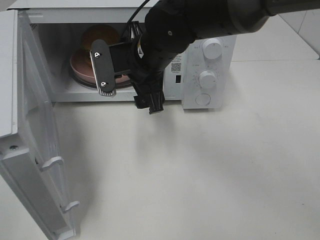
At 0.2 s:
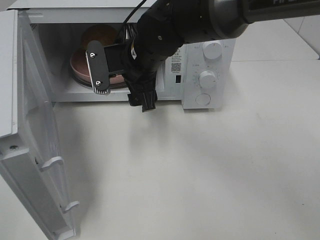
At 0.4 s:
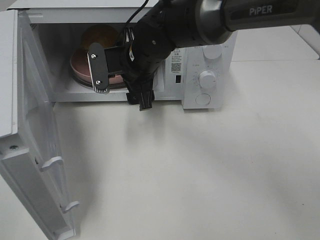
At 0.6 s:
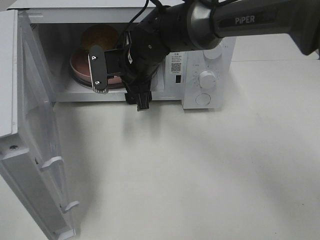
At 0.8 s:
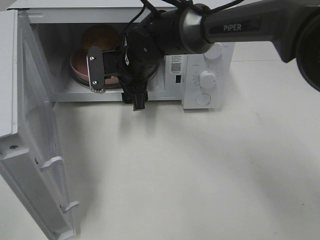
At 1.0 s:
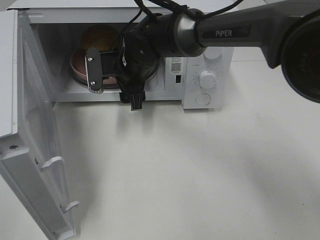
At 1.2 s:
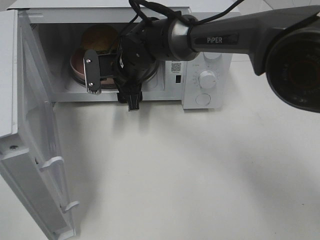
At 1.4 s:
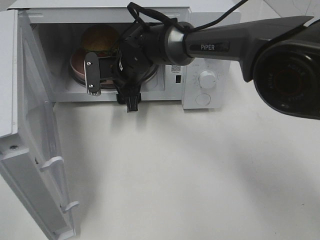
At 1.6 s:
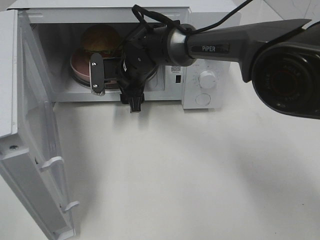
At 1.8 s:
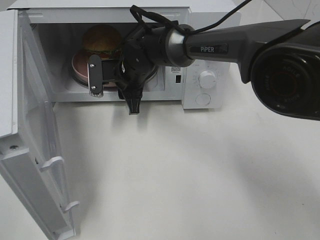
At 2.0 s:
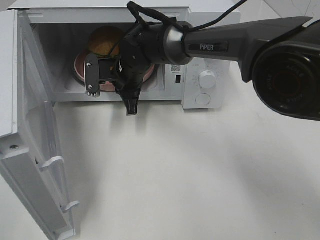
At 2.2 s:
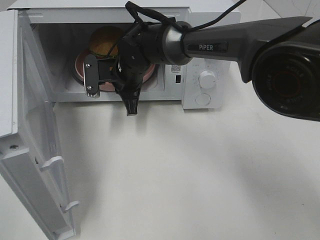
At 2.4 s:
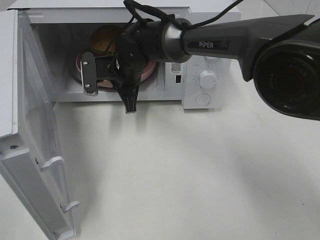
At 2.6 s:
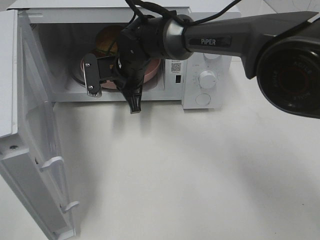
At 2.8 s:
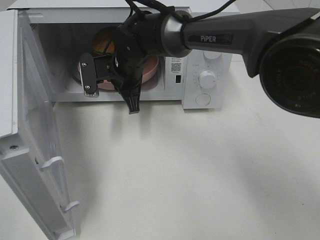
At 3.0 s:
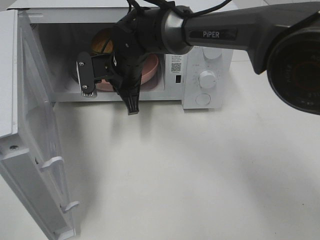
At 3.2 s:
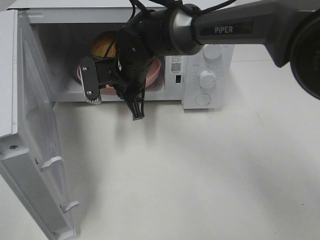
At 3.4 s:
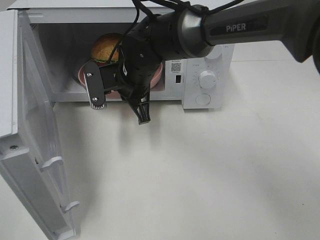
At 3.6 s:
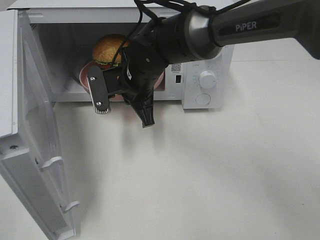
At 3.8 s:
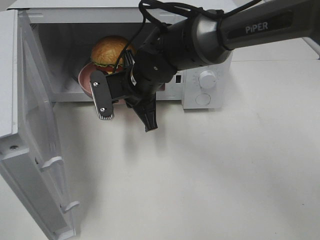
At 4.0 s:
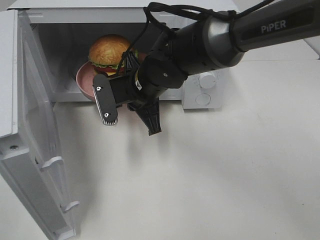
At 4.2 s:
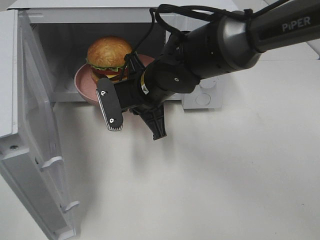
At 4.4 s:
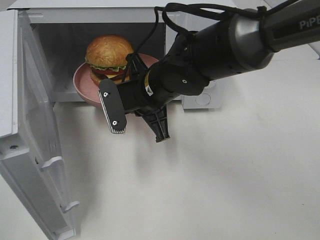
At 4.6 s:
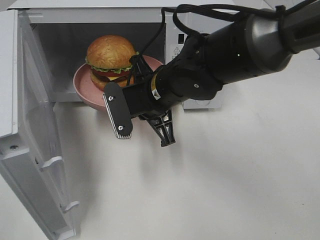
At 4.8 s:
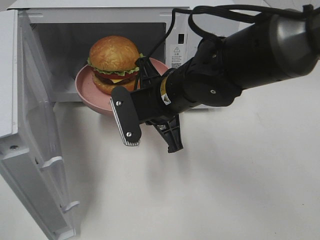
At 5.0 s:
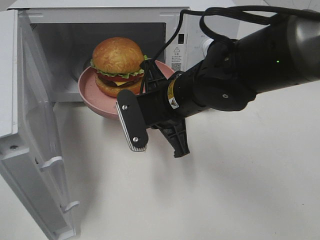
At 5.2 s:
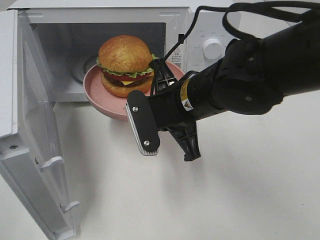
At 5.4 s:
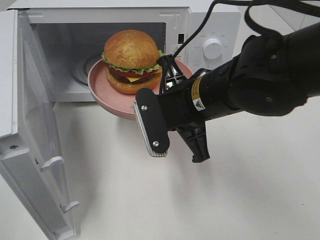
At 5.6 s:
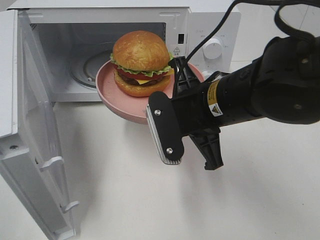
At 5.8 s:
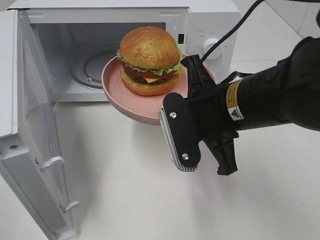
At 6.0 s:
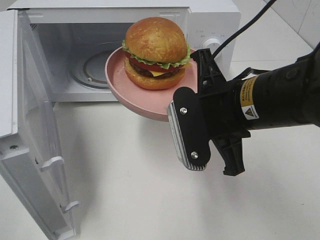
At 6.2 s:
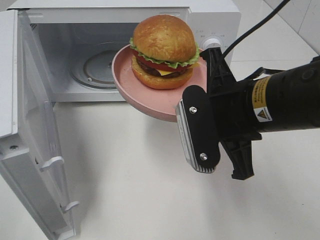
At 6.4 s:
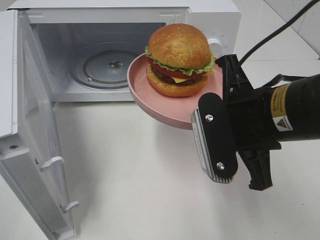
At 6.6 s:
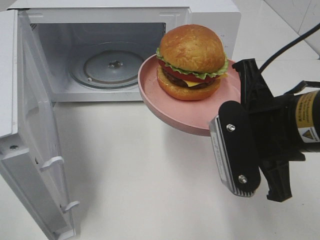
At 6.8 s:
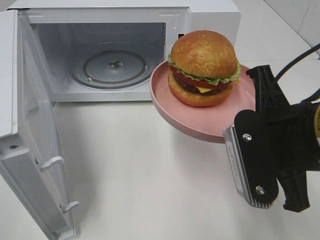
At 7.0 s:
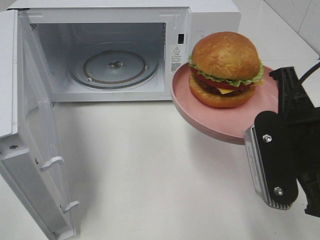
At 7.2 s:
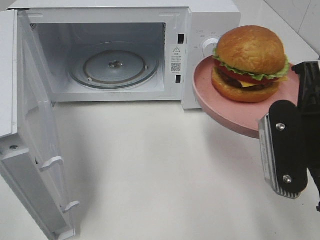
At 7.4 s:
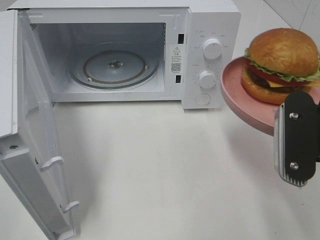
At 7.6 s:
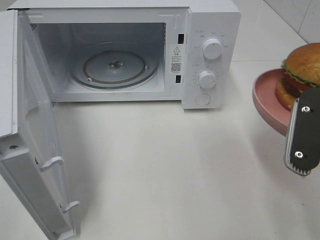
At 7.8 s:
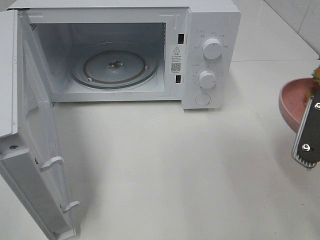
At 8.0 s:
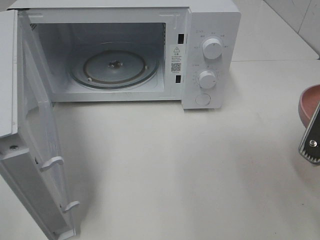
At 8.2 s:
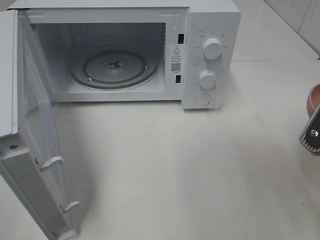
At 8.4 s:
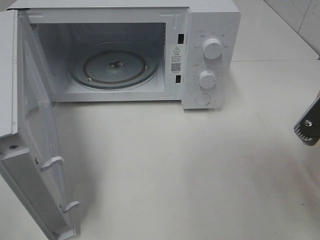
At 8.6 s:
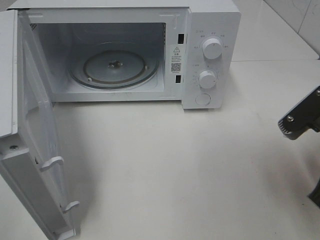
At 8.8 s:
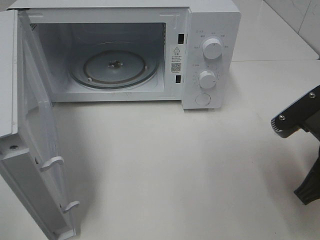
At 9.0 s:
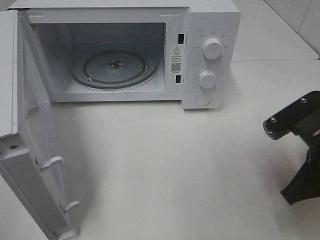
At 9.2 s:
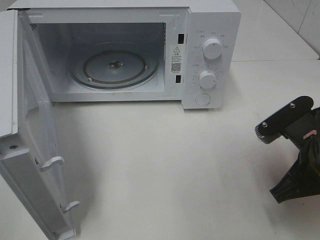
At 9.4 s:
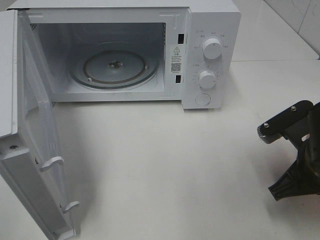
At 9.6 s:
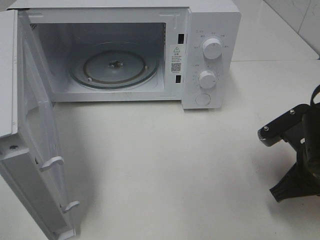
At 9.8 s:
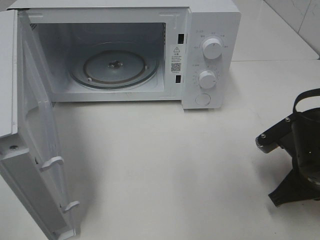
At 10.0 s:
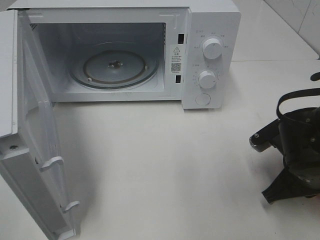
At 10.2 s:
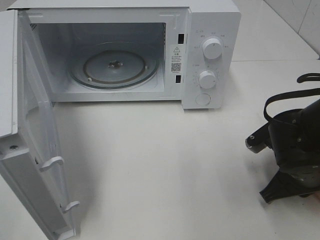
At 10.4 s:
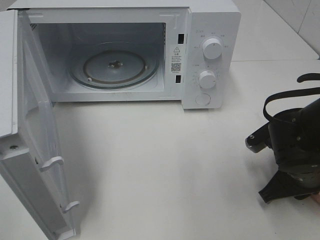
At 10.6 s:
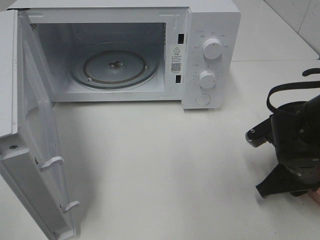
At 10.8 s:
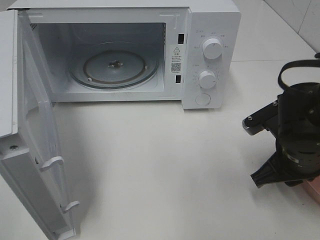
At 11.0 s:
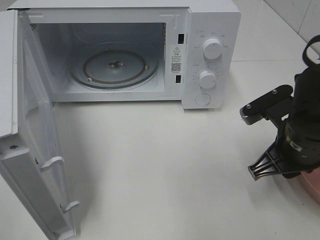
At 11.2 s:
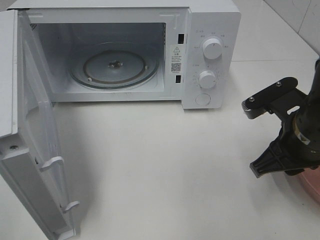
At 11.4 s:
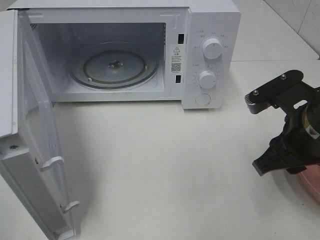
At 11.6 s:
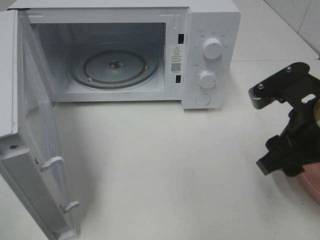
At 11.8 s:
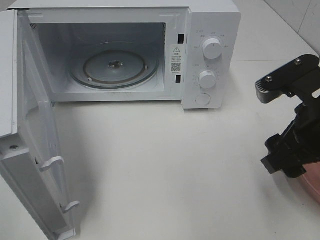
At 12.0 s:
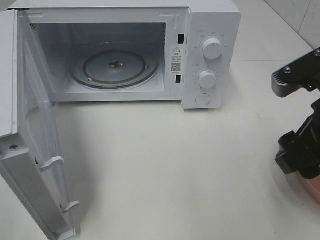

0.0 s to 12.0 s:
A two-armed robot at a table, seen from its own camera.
Task of the whole recording: Heat the burger.
Step, 0.0 to 2.4 s: Right hand: grab the plate with the hamburger.
Step, 2.6 to 10.6 s: Right hand: place the plate on the table.
0.0 to 1.6 s: The right gripper heads forward and downward, covering approximately 10 cm.
1.6 to 3.0 s: The right gripper closes its fingers.
3.0 to 4.4 s: The right gripper moves backward and to the right, about 10 cm.
4.4 to 6.0 s: The right gripper shifts about 15 cm backward, to the right and upward.
6.0 to 7.6 s: The right gripper heads to the right and backward, covering about 15 cm.
7.6 to 9.0 s: The right gripper heads downward, covering some 5 cm.
9.0 to 10.4 s: The right gripper travels downward by about 5 cm.
10.4 to 12.0 s: The right gripper is displaced upward by roughly 15 cm, and opens up.

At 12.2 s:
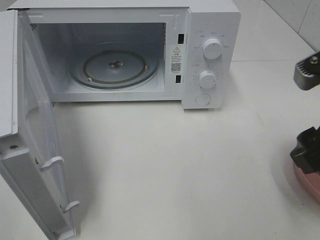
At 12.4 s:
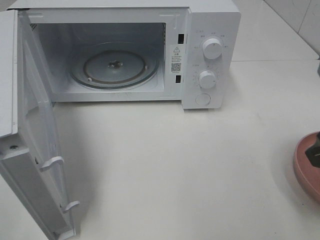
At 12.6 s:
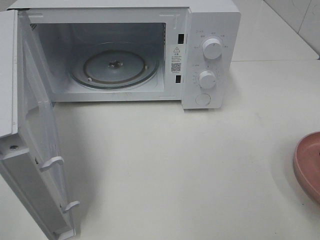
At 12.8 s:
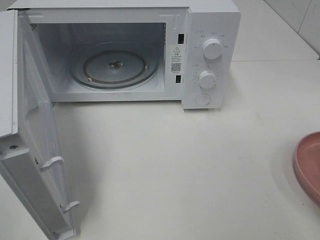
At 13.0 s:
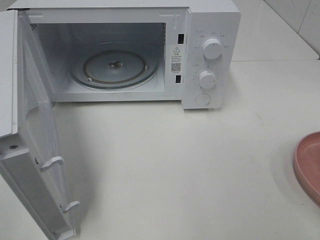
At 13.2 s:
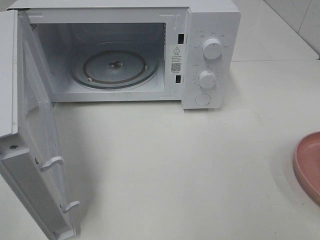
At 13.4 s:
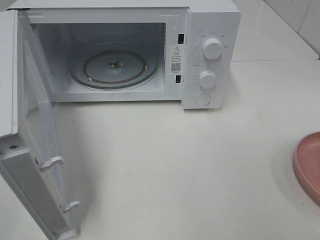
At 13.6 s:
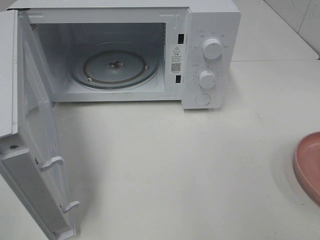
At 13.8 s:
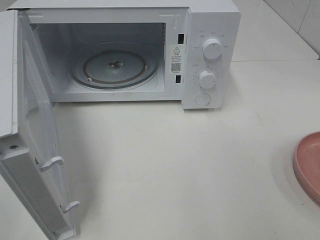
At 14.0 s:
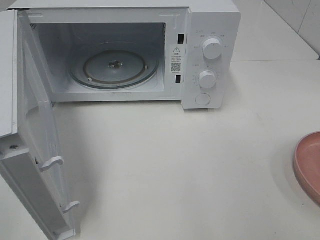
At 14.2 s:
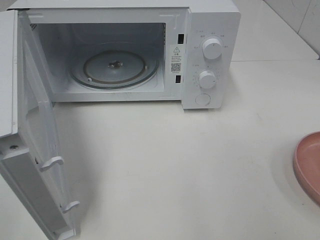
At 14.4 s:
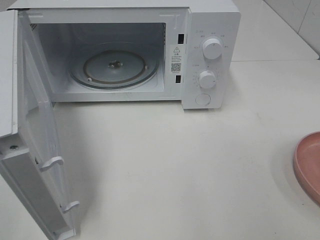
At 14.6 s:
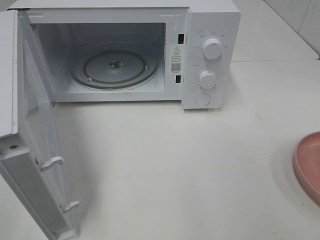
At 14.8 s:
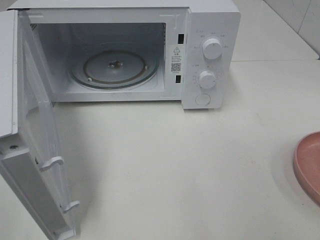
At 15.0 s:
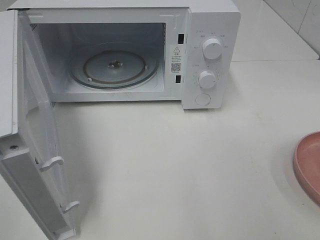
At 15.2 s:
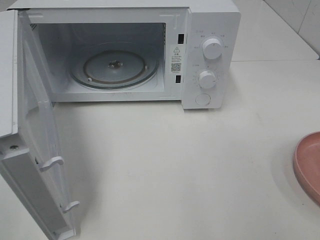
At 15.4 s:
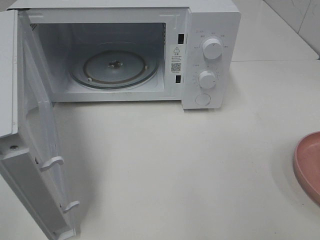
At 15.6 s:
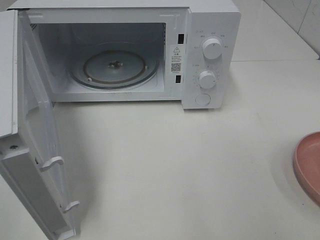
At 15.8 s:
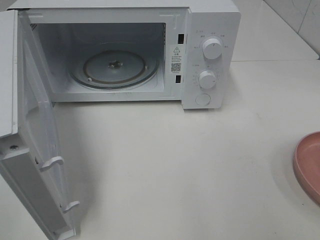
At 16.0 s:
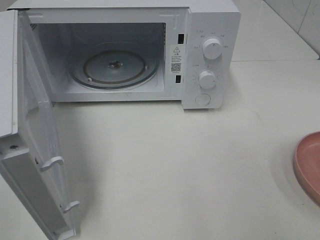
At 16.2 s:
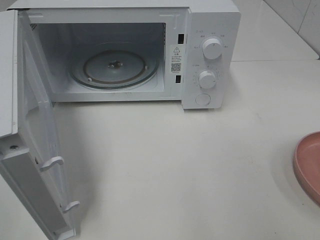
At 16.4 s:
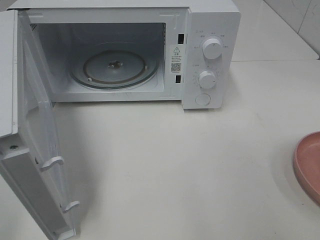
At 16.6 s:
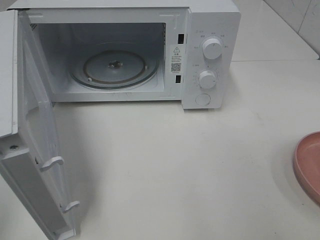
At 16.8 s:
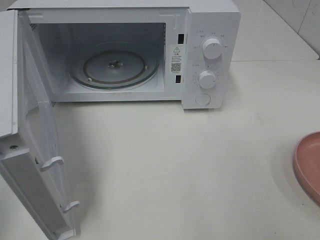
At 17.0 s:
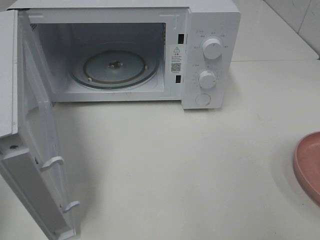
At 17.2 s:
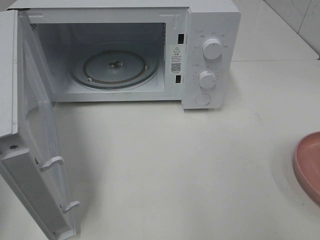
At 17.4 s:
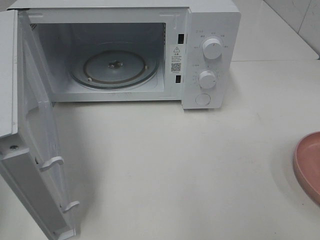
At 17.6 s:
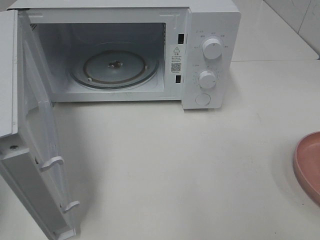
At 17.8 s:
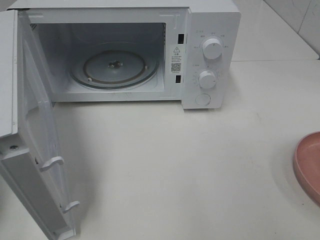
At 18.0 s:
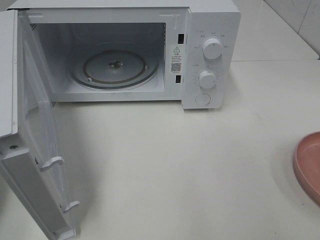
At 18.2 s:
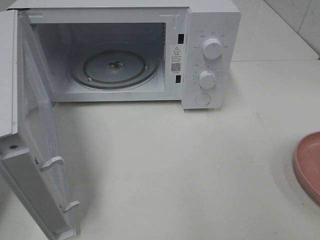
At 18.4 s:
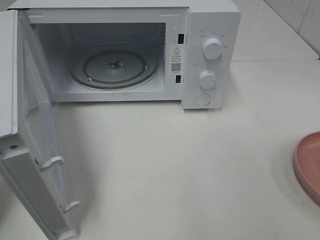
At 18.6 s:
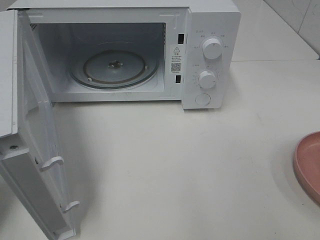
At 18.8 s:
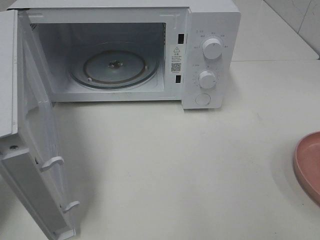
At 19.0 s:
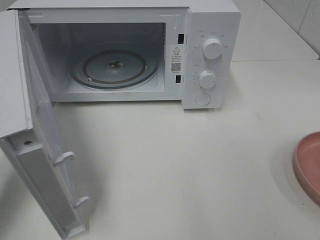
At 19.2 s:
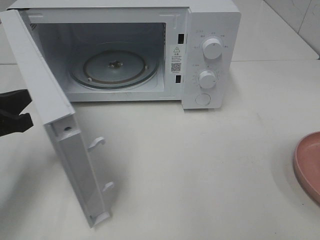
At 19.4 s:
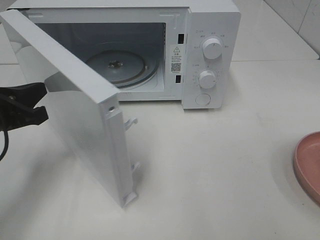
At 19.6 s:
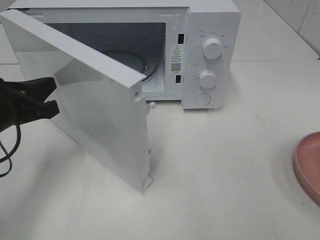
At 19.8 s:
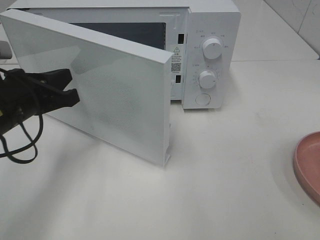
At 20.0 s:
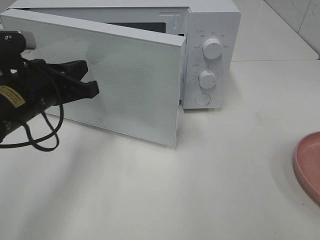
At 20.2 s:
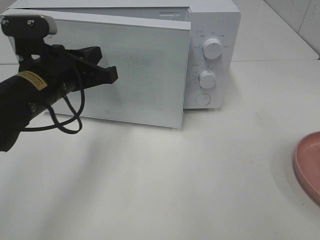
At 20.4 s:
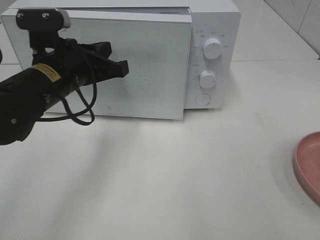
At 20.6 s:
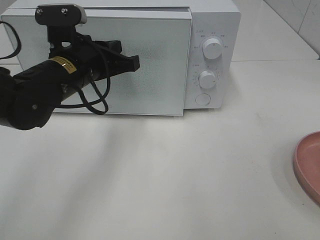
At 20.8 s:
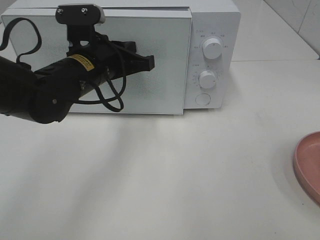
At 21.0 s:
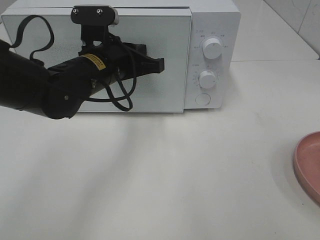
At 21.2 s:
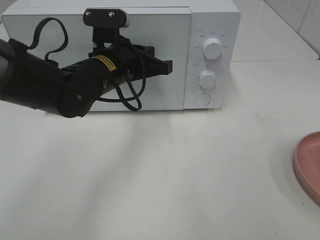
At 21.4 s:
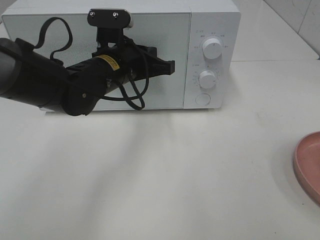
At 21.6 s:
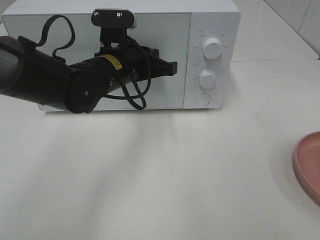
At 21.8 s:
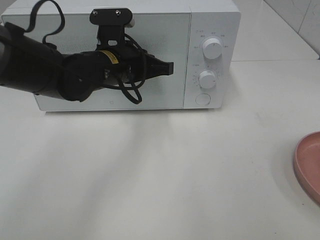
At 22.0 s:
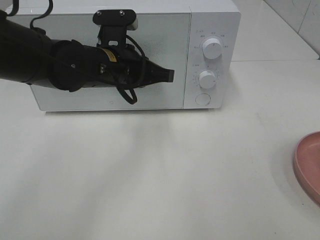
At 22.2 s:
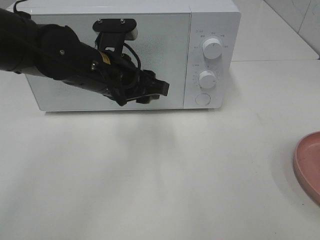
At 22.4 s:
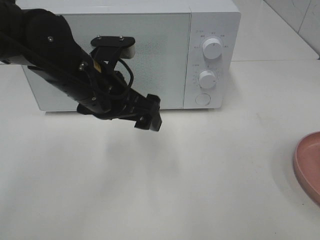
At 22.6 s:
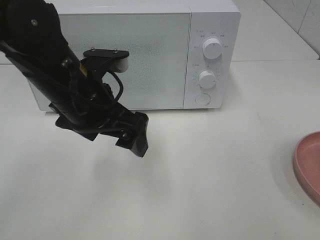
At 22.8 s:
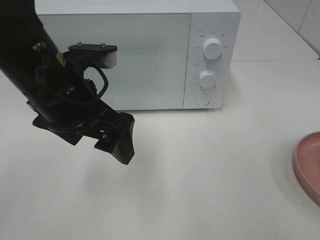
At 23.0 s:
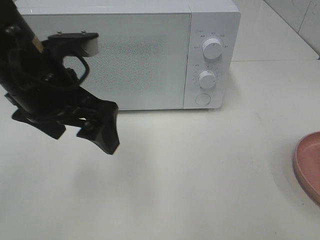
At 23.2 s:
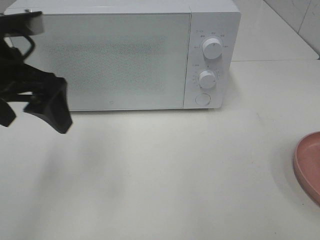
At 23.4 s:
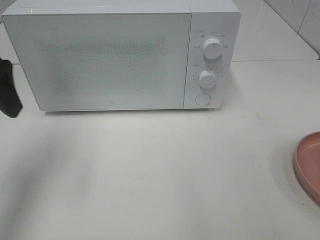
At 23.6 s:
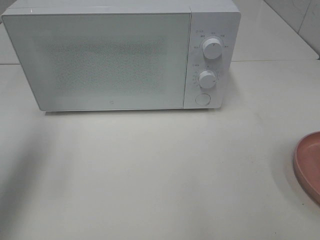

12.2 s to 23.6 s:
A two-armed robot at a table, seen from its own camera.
Task of the whole recording: Heat the burger.
Step, 12.2 to 21.8 s: Left hand: close the microwave door.
12.2 to 13.6 s: The right gripper moves backward and to the right, some 15 cm.
17.8 to 19.4 s: The left gripper moves to the right, forward and downward, about 15 cm.
19.4 to 20.8 s: The left gripper travels to the right and forward by roughly 15 cm.
20.8 to 22.2 s: The left gripper opens.
22.2 to 23.6 s: The left gripper is displaced to the left and upward by roughly 25 cm.
